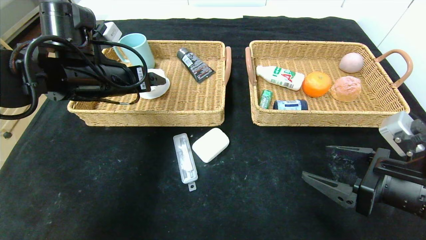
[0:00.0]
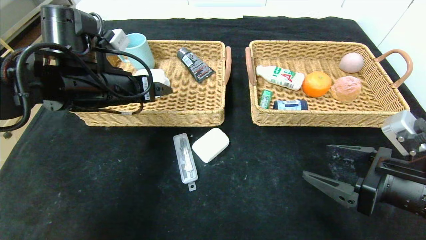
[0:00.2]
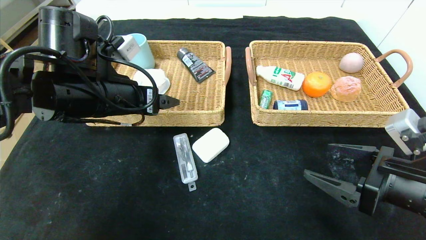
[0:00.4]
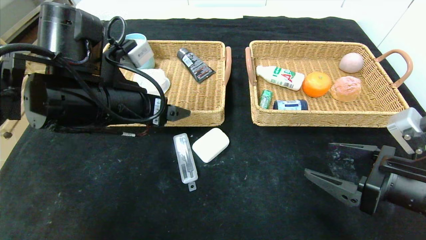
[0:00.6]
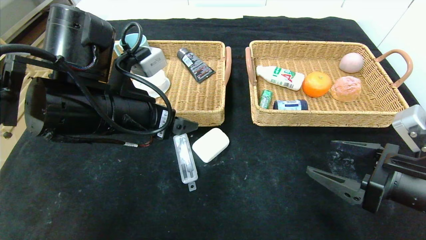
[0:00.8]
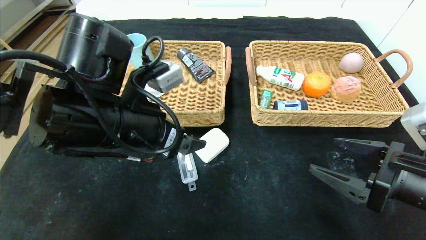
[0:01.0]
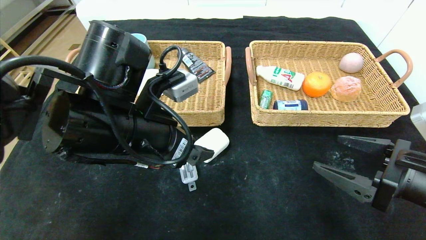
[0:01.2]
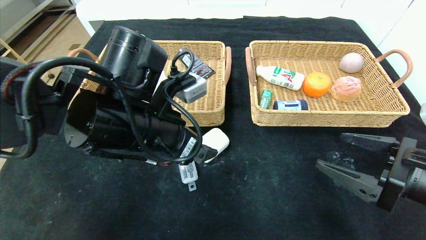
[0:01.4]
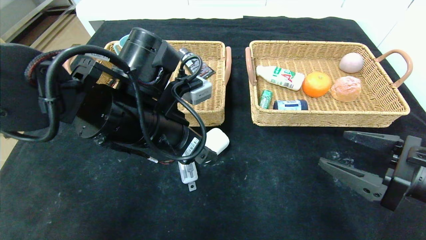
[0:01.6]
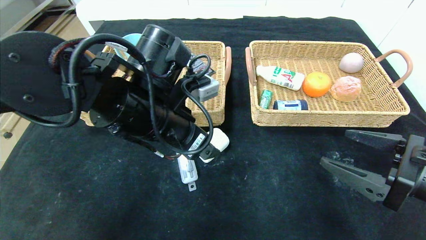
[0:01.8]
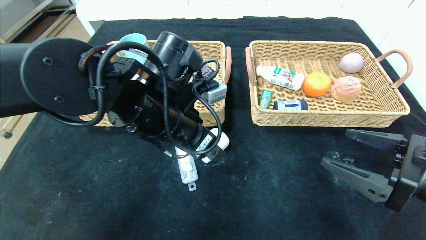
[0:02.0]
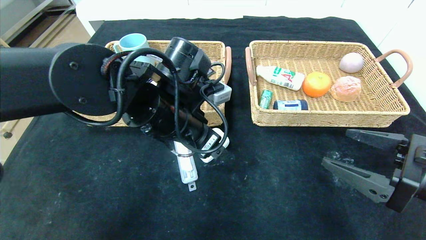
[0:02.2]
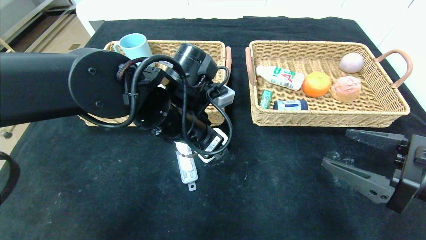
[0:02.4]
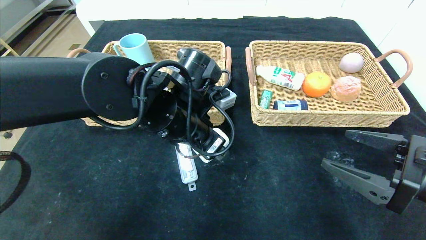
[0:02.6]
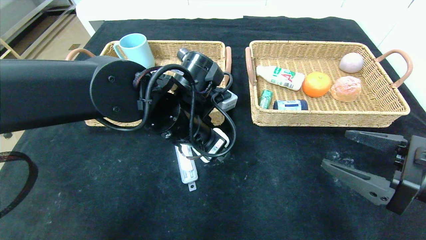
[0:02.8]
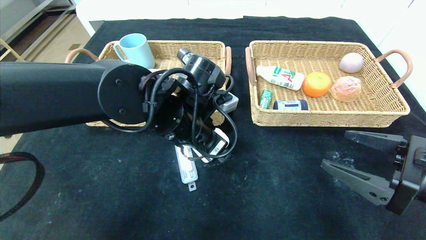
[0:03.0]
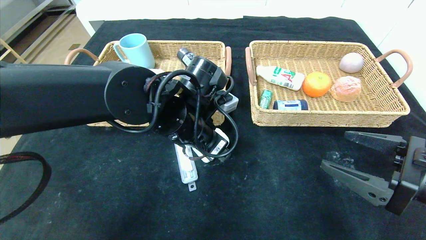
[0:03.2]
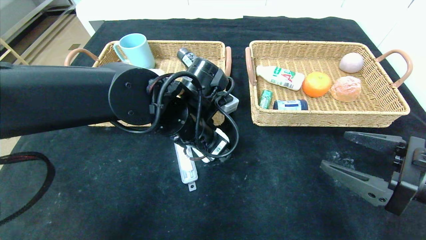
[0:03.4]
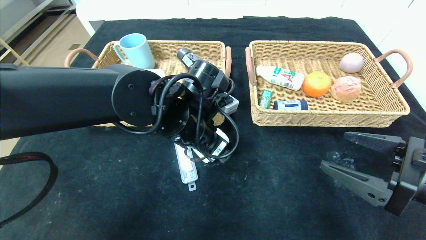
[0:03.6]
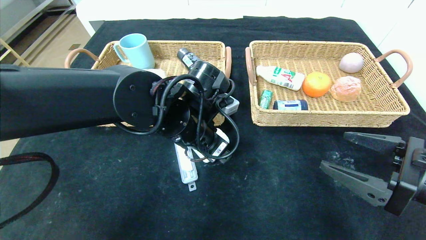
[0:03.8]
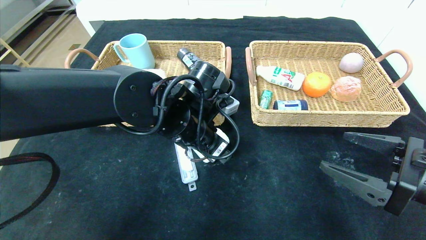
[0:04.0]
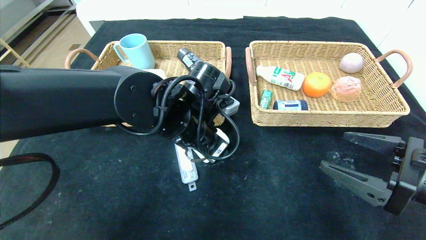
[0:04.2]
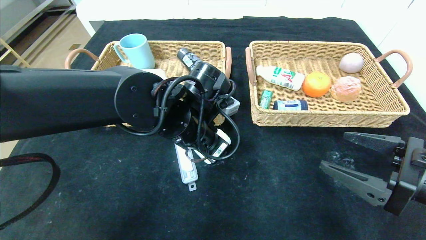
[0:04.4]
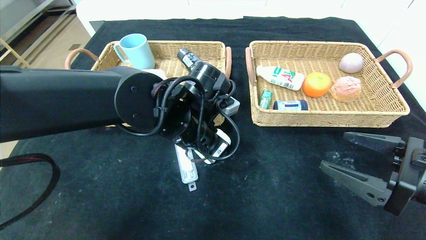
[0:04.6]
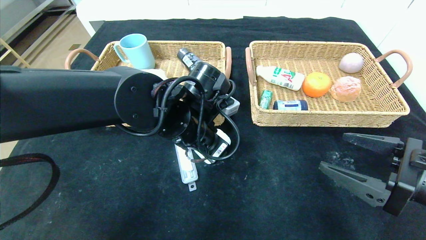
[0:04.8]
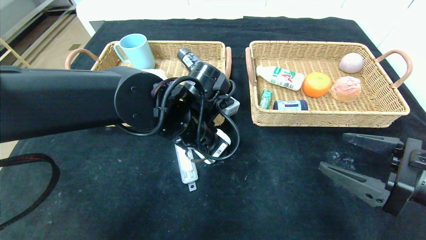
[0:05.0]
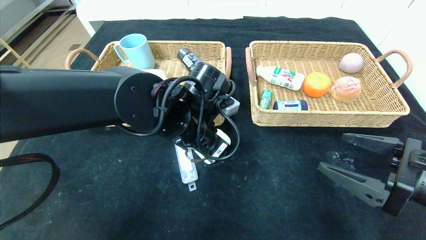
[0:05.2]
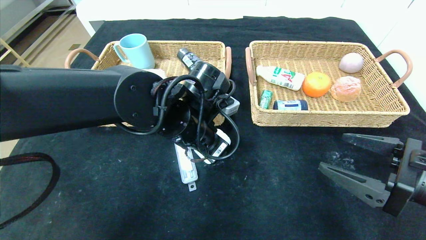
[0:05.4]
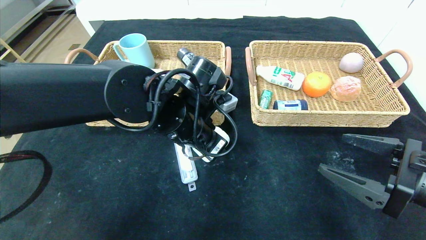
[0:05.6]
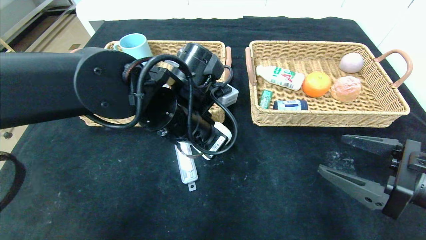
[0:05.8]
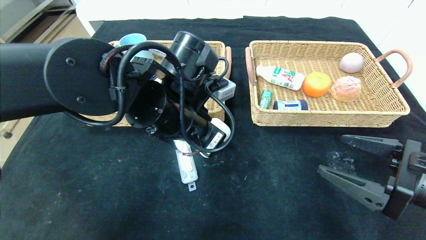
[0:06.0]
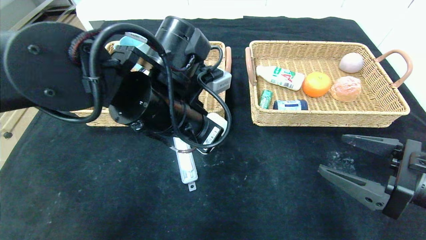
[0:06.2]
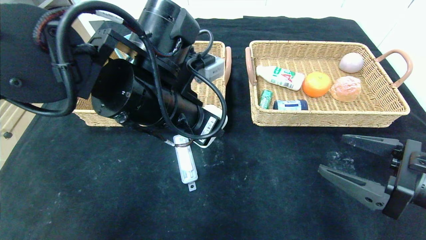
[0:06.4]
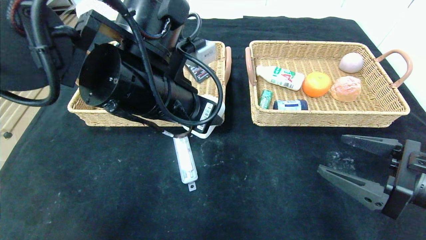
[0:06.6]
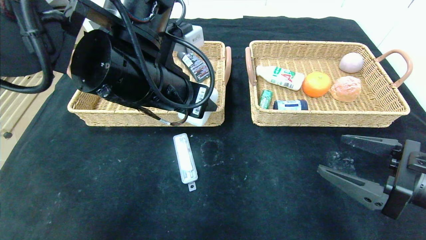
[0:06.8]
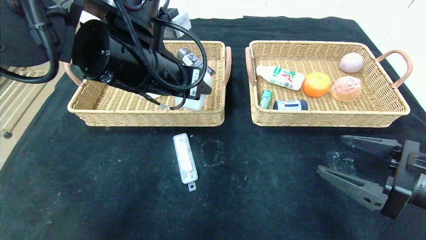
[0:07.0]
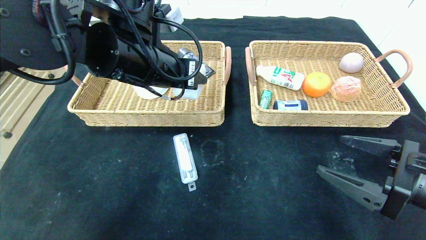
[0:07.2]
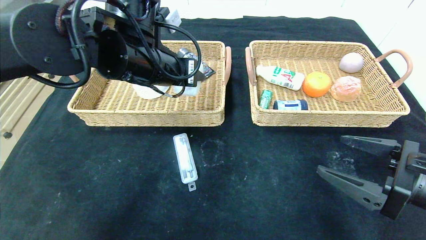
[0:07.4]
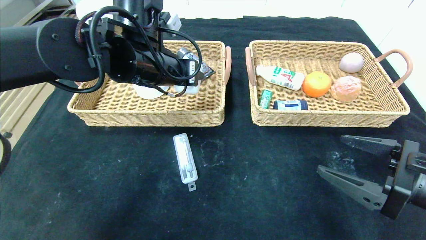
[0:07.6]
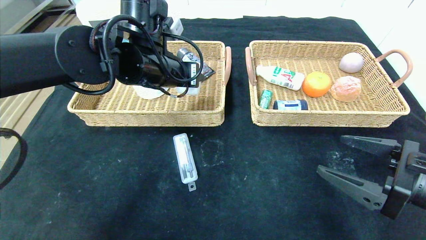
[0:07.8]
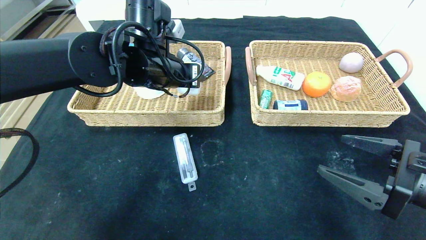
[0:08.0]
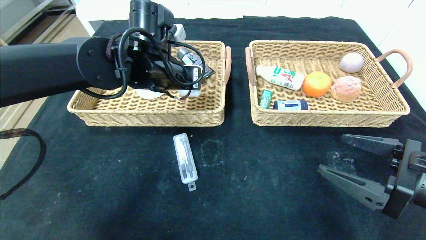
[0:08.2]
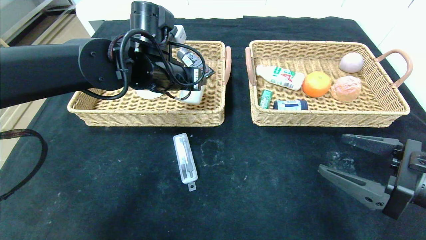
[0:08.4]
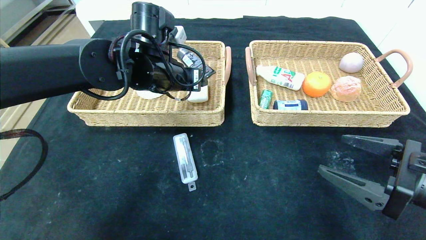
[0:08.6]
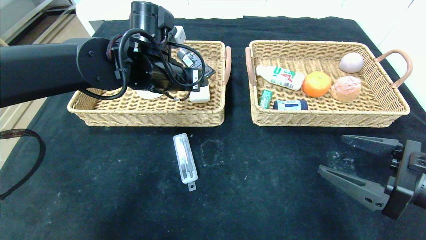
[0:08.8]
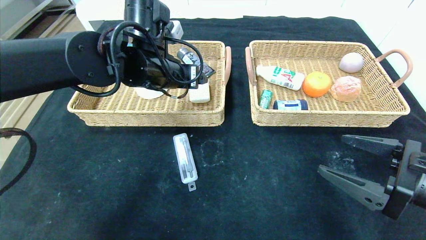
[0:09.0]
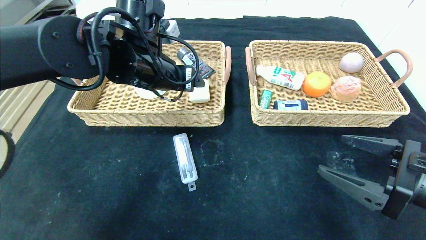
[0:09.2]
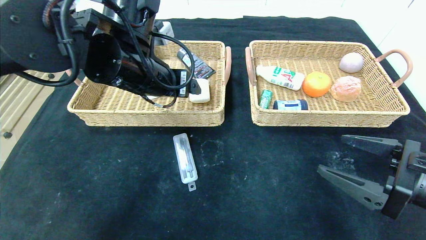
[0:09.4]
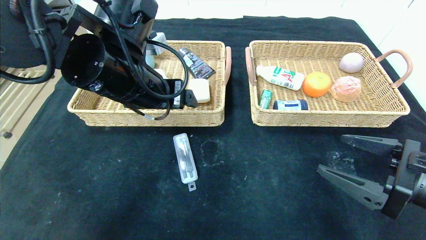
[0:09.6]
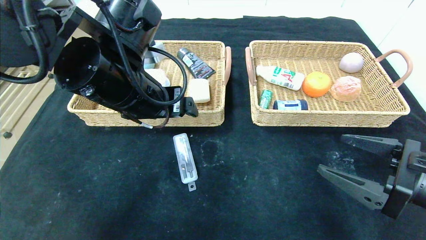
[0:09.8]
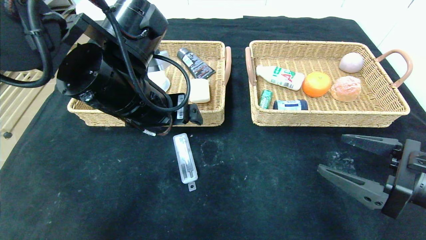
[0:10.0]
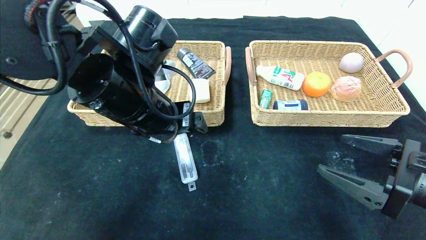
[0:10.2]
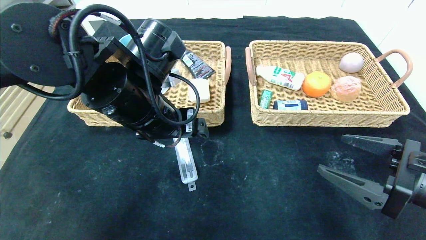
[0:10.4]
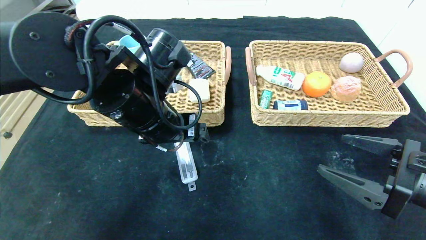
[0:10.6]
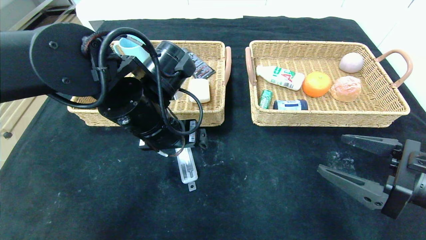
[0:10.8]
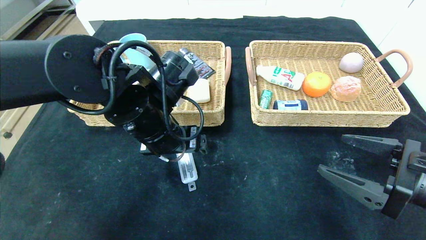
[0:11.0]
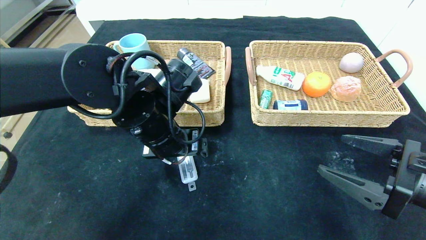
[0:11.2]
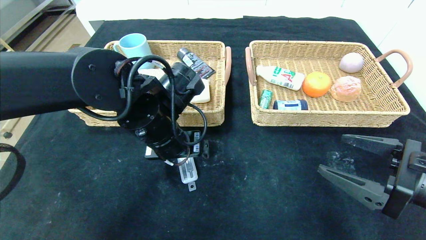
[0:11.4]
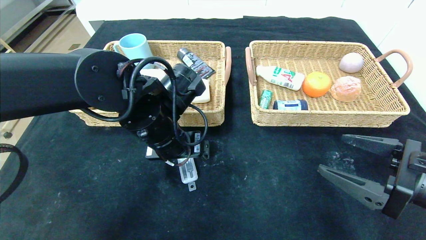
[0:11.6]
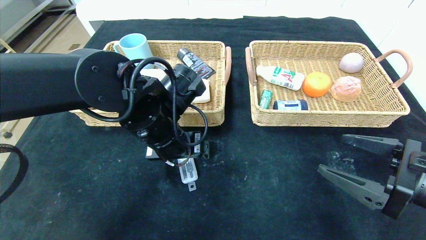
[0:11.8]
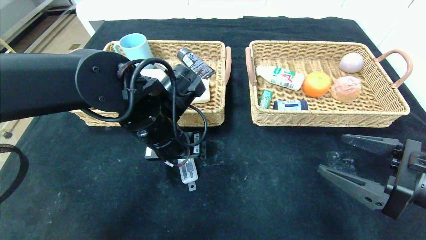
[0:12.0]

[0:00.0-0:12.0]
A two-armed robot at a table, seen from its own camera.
Step, 0:00.0 to 0:08.8: Grasp the white eraser and put it in the left basket.
0:00.0 to 0:01.6: The left gripper goes about 15 cm to the right and backward.
0:01.6 to 0:03.0: The left gripper changes place by roughly 5 cm.
0:03.0 to 0:04.4: The left gripper closes its fingers.
0:04.4 to 0:06.0: The left gripper ends up some 5 cm from where it was.
0:06.0 to 0:07.6: The left gripper travels forward and upward by roughly 10 cm.
0:07.6 to 0:09.0: The grippers make only small movements.
0:09.0 to 0:10.4: The left gripper is displaced backward by about 10 cm.
0:10.4 to 0:12.0: The left gripper shifts by approximately 5 cm.

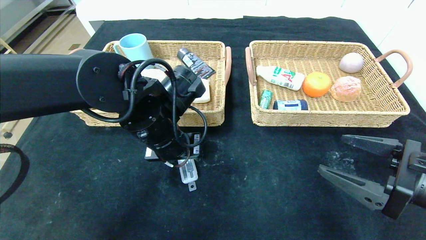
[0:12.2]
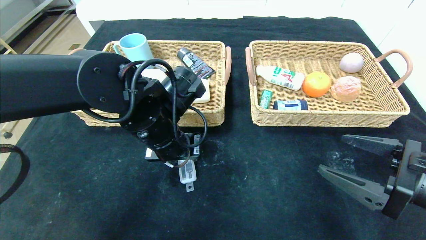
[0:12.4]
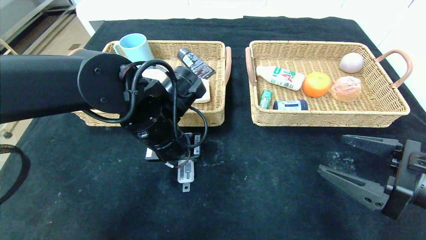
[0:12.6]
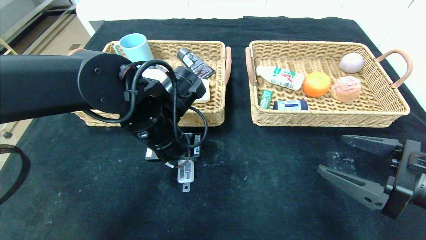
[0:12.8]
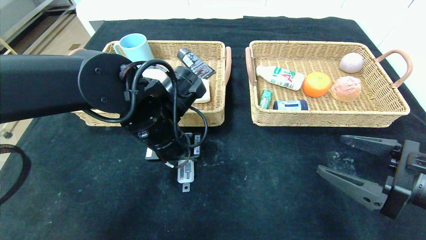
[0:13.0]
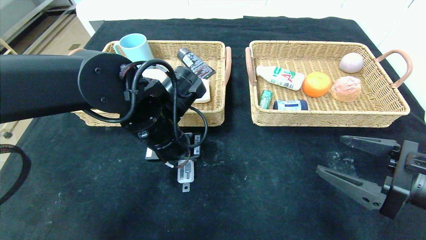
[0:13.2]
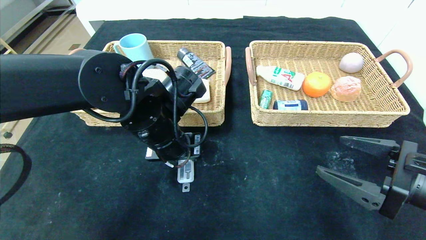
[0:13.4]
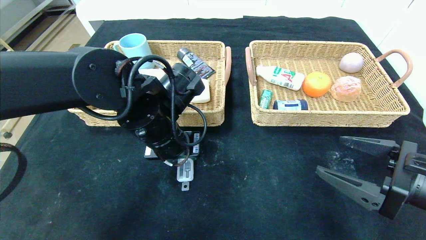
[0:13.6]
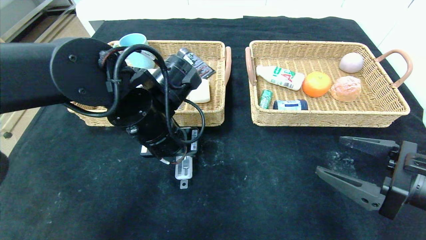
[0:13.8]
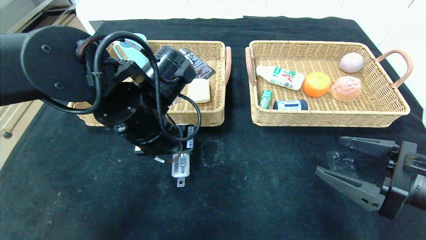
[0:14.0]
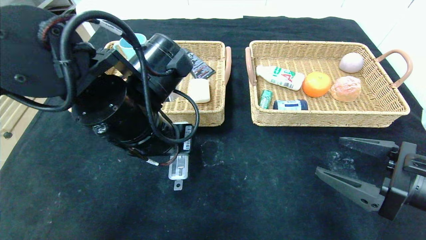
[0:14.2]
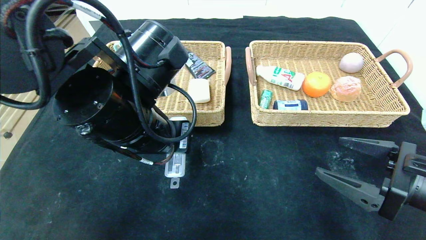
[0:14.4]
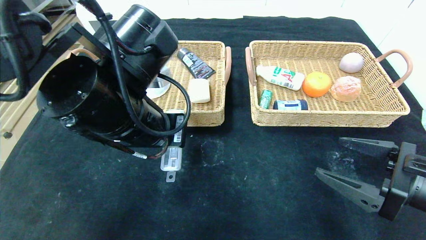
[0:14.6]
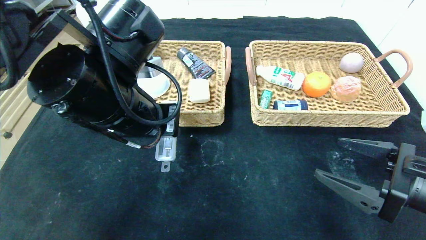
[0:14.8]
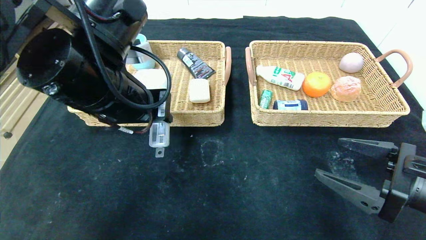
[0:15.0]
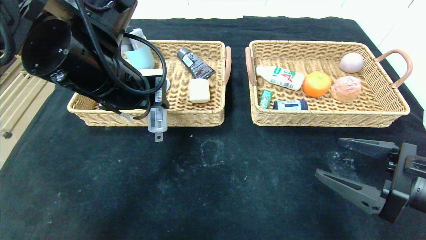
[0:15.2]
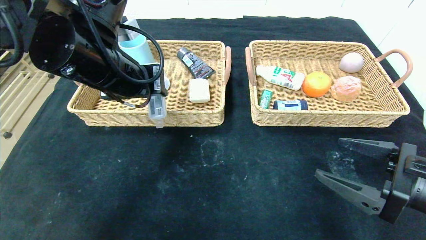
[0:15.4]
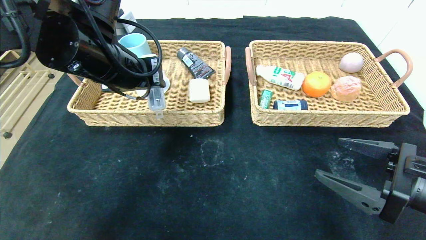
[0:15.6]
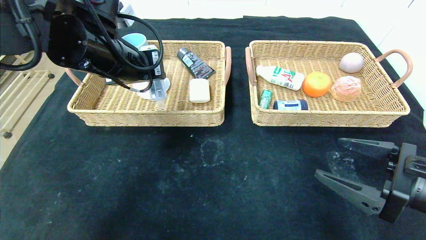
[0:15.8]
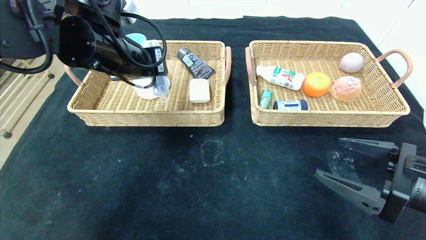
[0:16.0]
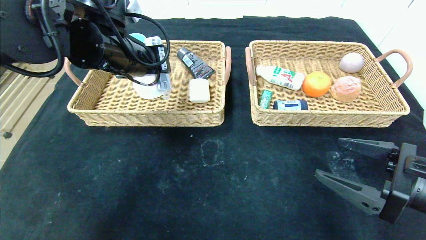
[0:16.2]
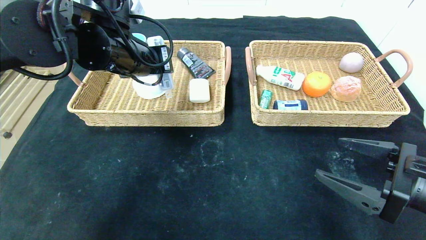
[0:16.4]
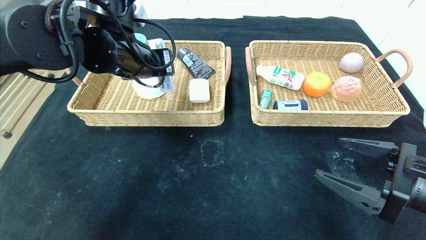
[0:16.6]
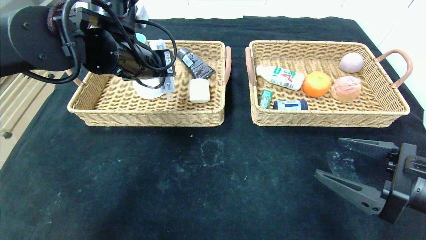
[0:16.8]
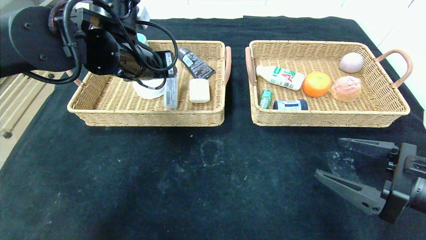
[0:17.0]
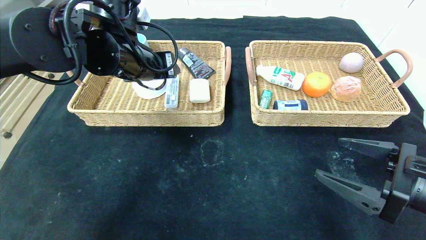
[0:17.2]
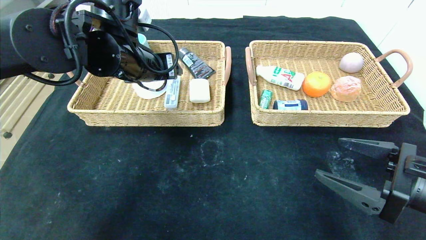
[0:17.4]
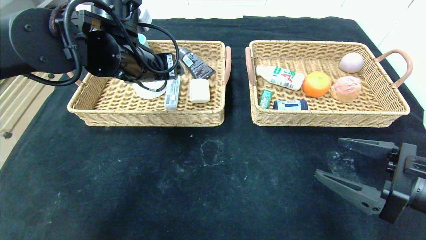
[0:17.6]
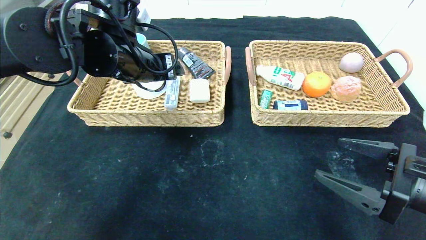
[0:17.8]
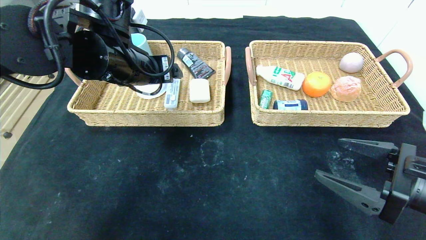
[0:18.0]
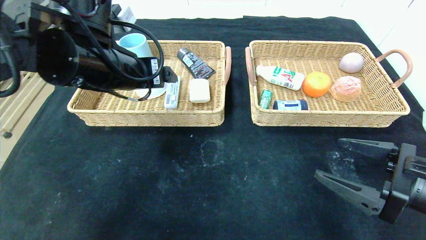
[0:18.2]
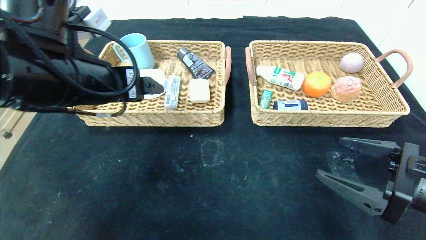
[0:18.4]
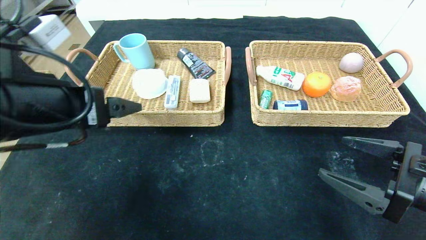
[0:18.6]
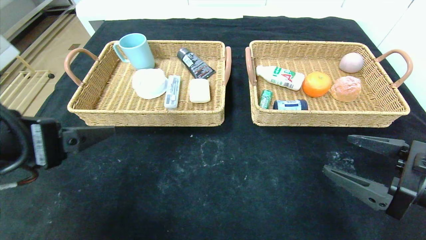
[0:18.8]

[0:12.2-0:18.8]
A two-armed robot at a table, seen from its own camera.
Step, 0:12.2 to 0:17.0: Grasp the compass and put it in the left basket.
0:12.2 to 0:13.8: The grippers stay close to where they were, moving slightly.
0:13.8 to 0:15.4: The left gripper shifts about 10 cm upward and to the left.
0:15.4 to 0:17.2: The left gripper goes approximately 5 cm forward.
0:17.2 to 0:18.8: The left gripper travels backward by approximately 20 cm.
